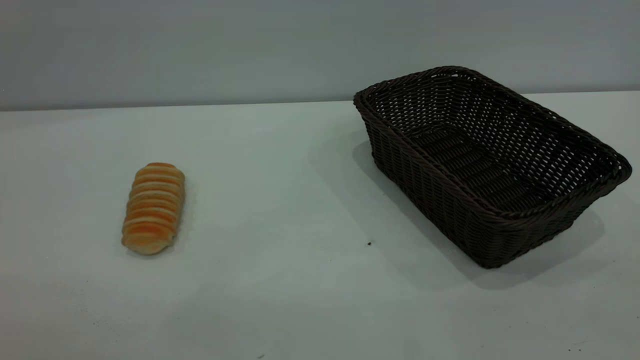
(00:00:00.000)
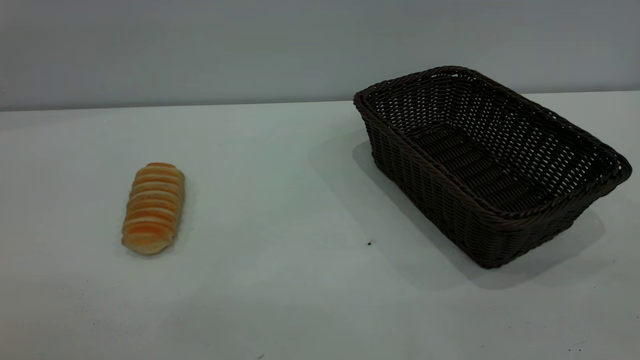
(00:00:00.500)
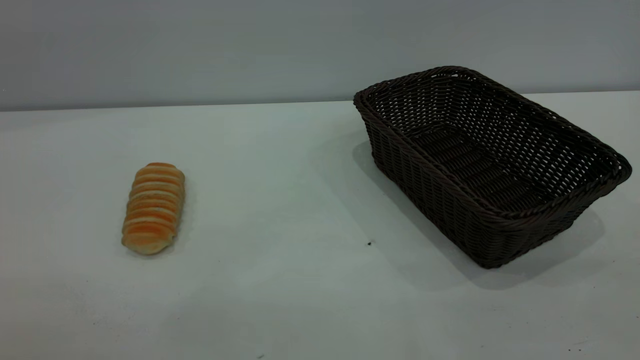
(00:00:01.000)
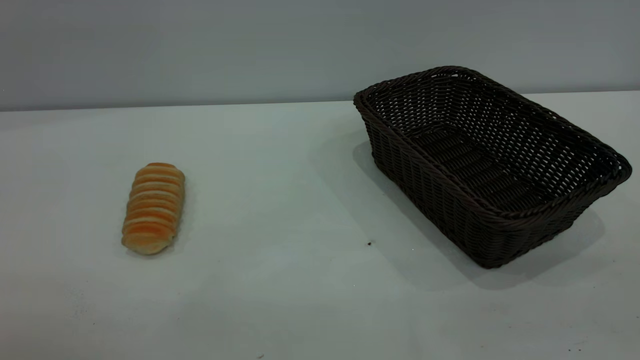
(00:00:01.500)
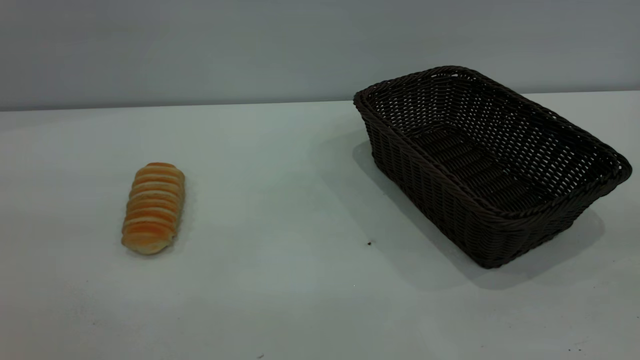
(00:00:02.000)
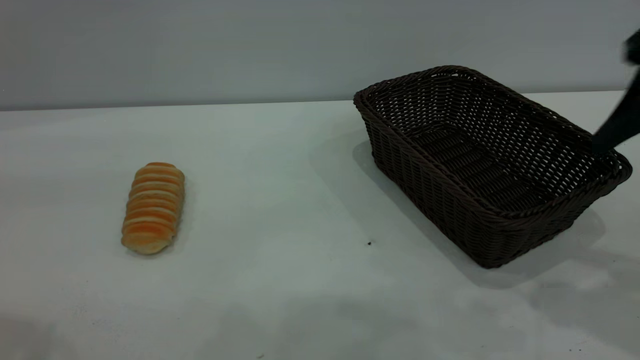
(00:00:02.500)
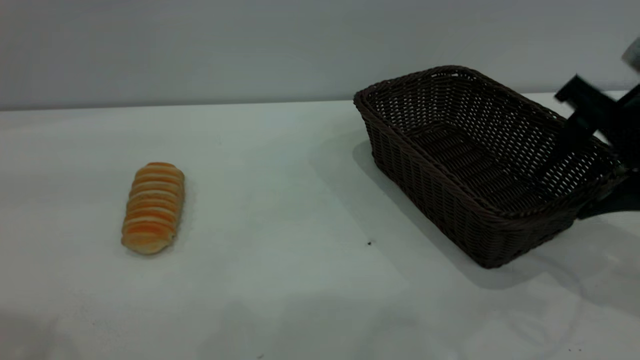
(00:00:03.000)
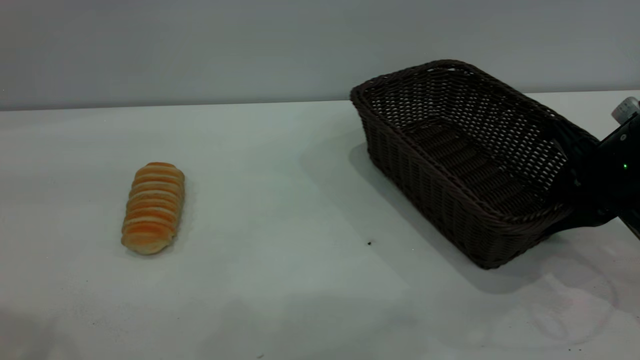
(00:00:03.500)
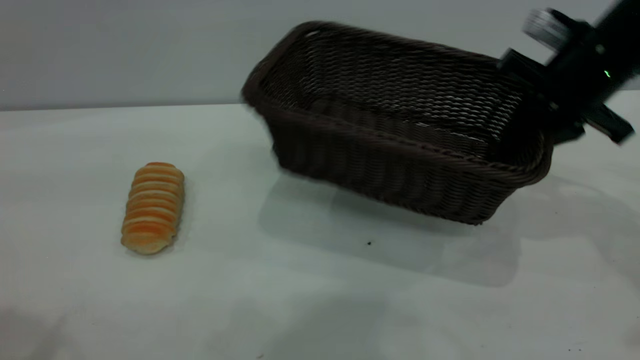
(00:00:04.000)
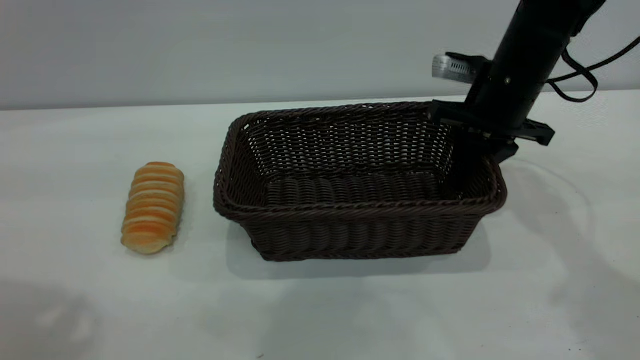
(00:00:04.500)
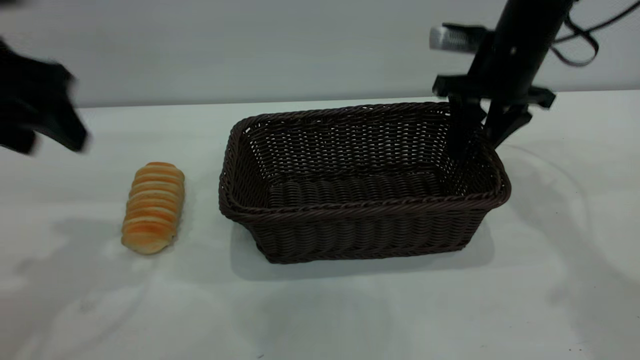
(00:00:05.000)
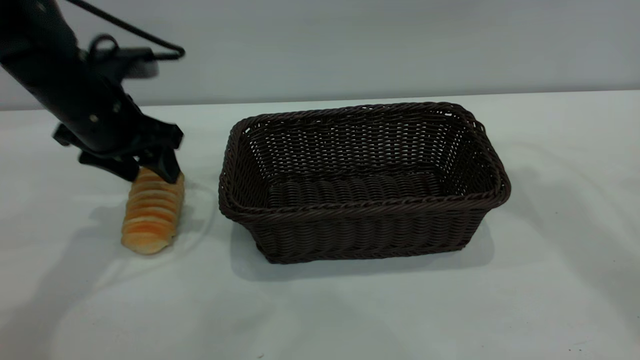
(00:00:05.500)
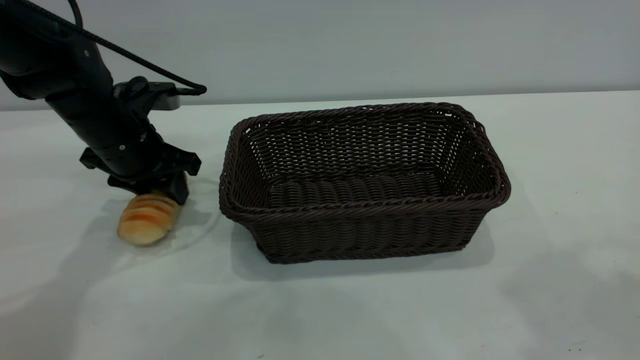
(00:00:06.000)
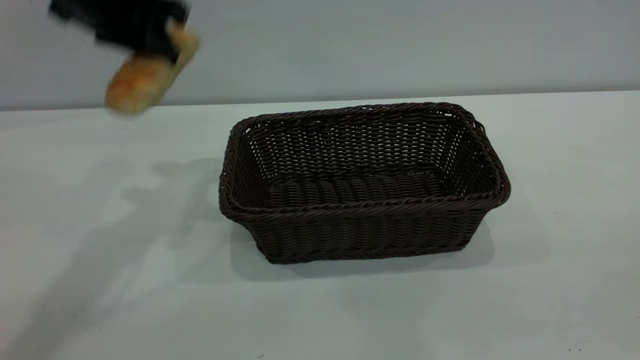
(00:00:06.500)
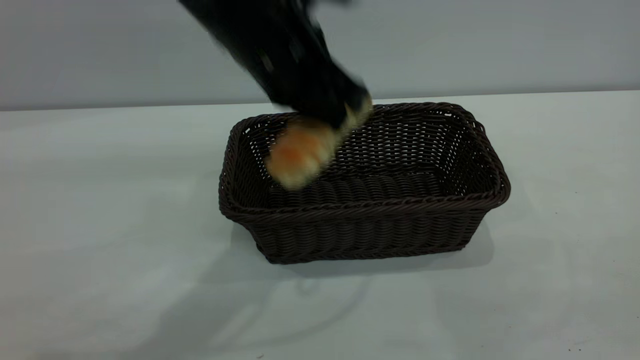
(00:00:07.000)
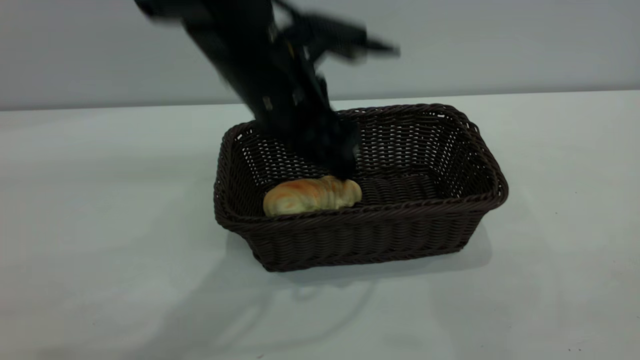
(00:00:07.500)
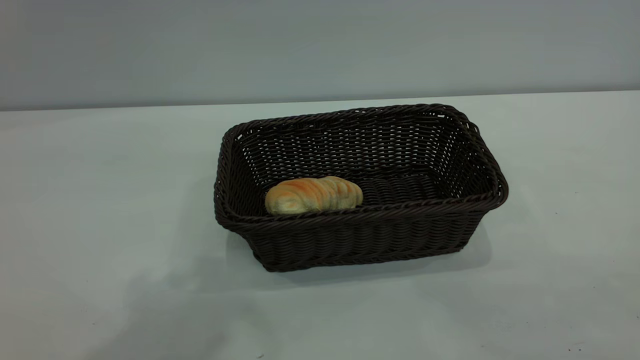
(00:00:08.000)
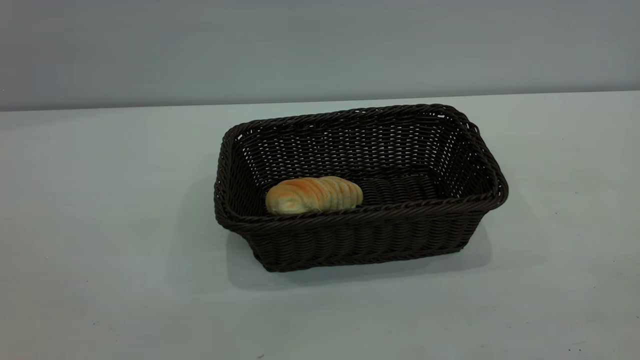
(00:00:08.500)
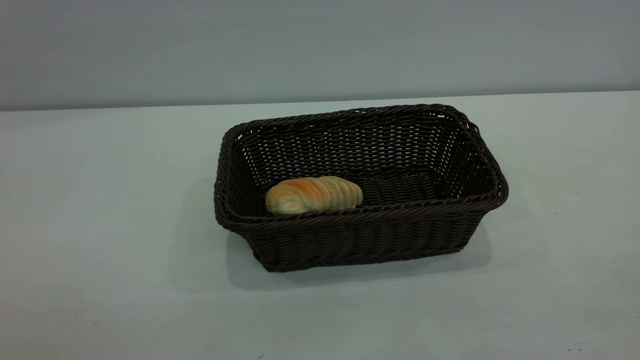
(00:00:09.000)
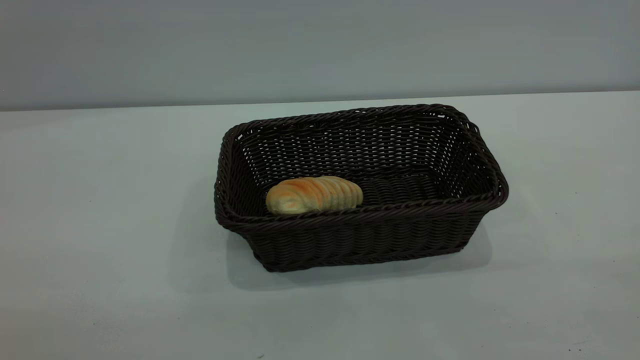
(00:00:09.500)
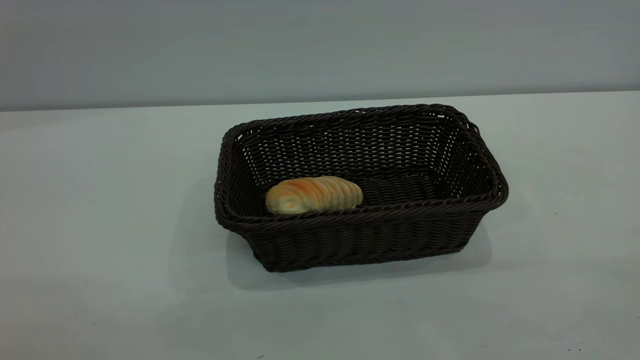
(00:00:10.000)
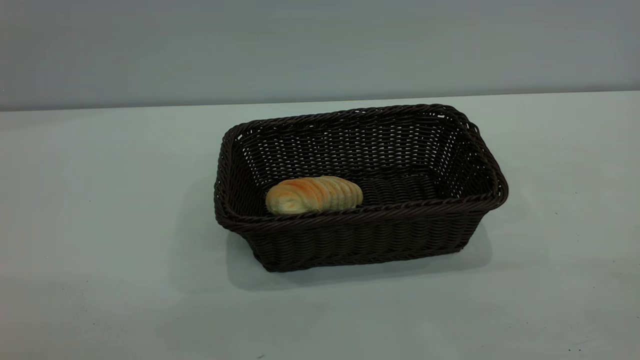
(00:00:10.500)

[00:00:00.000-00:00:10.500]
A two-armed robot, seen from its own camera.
Task of the whole recording: One hand grasps the black basket and places it in the middle of the table, while the other hand picks up the long bread and puts it into the black basket.
Step, 00:00:00.000 to 00:00:05.000: Move the basket to the center of view.
Step, 00:00:07.000 to 00:00:07.500: place the bread into the basket.
00:00:02.000 to 00:00:04.000: The left gripper goes about 10 cm forward, while the right gripper moves forward and downward, roughly 35 cm, and closes up.
00:00:04.000 to 00:00:06.500: The left gripper travels forward, downward and to the right by approximately 25 cm, and closes up. The right gripper travels backward by about 35 cm, and opens.
00:00:06.500 to 00:00:08.500: The left gripper travels backward by some 35 cm, and opens, while the right gripper travels backward by roughly 5 cm.

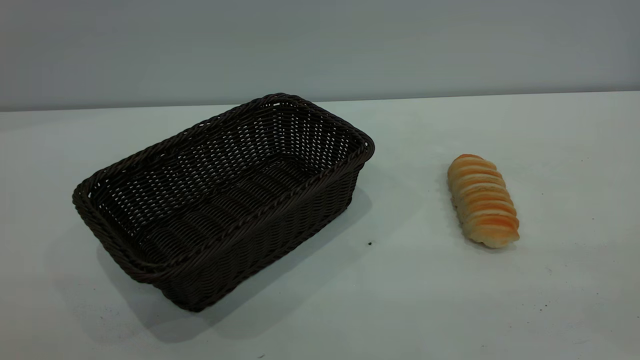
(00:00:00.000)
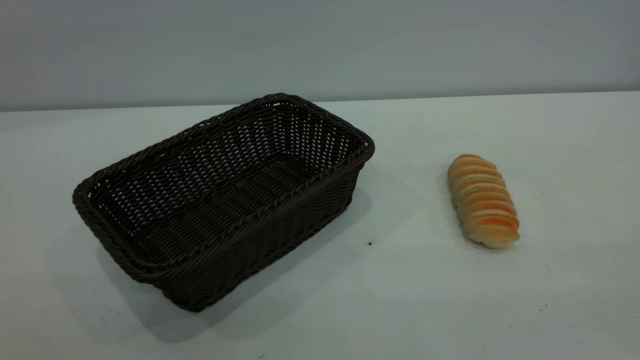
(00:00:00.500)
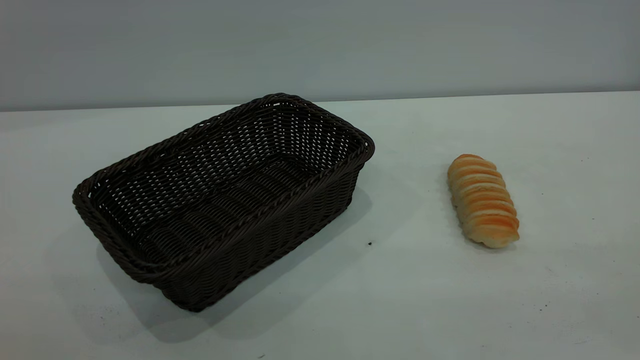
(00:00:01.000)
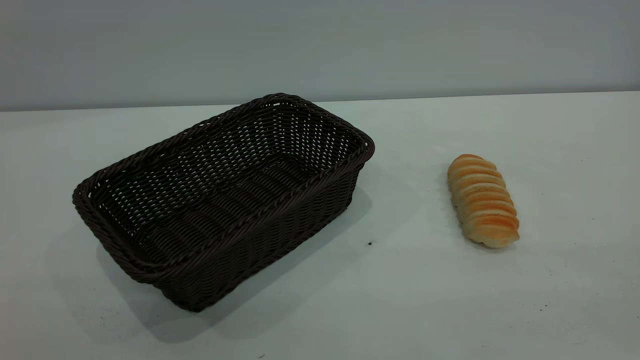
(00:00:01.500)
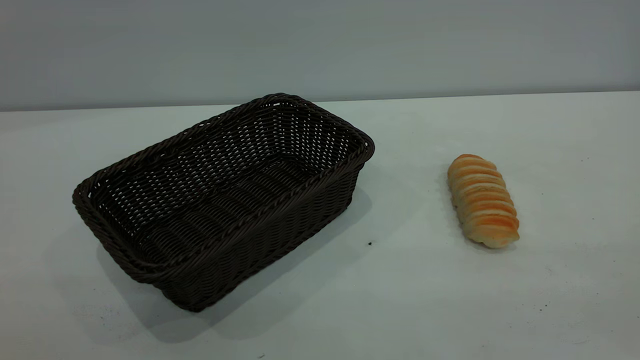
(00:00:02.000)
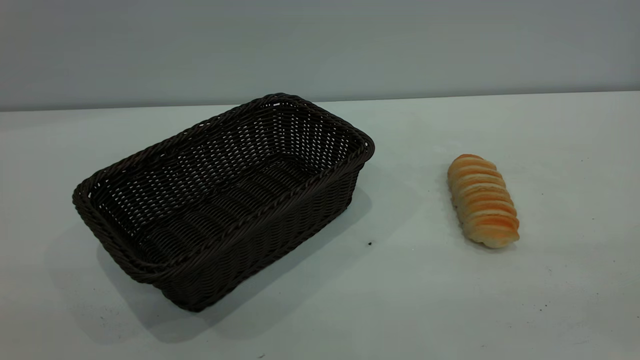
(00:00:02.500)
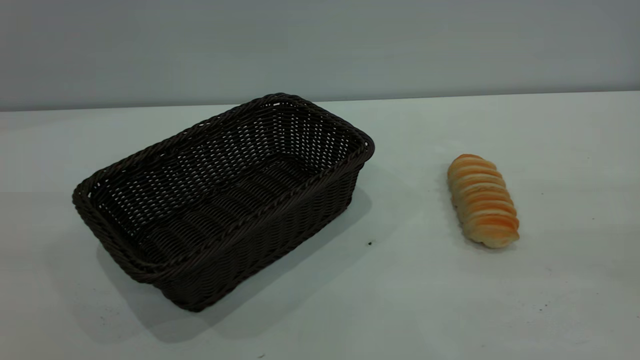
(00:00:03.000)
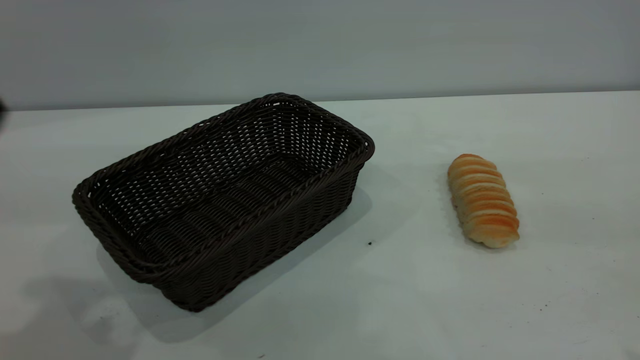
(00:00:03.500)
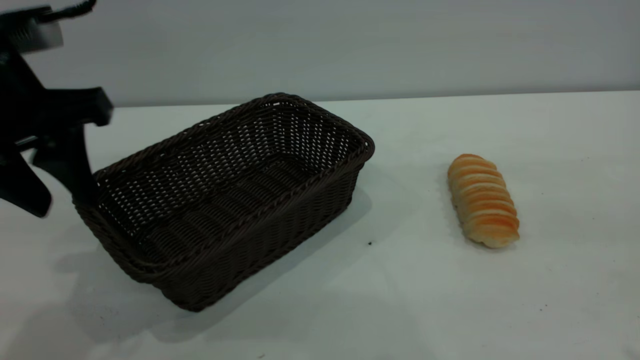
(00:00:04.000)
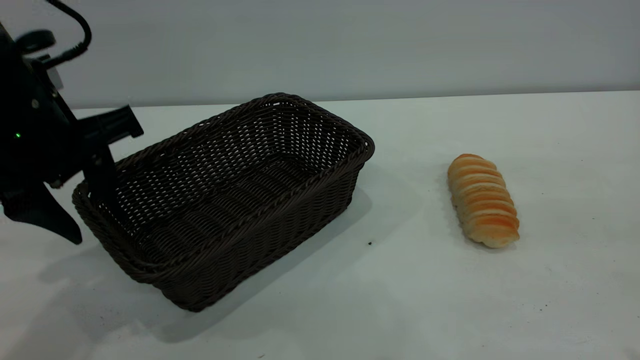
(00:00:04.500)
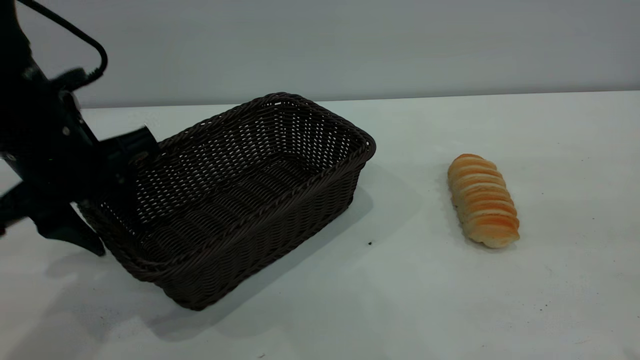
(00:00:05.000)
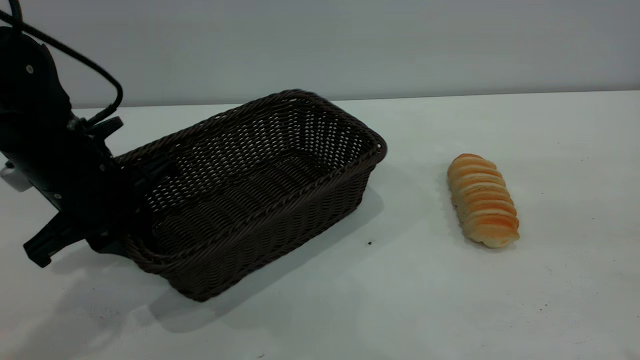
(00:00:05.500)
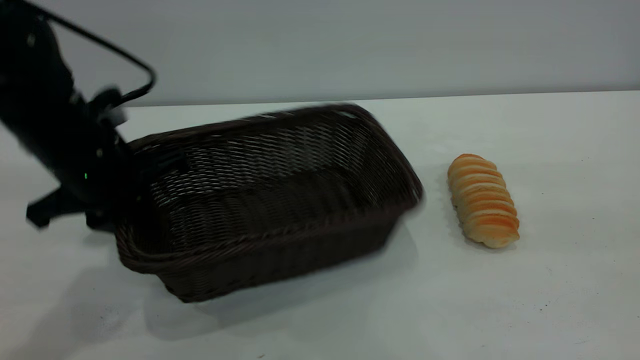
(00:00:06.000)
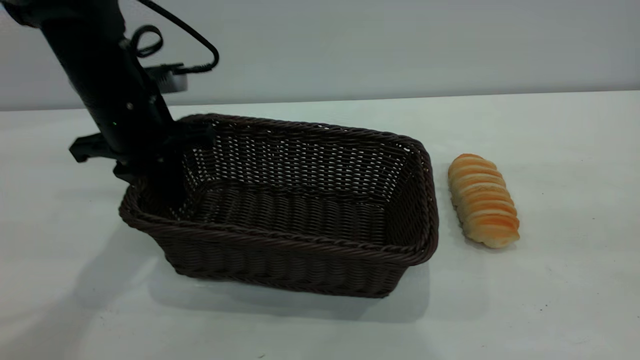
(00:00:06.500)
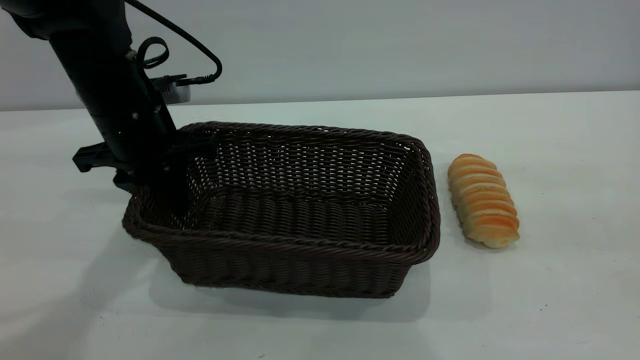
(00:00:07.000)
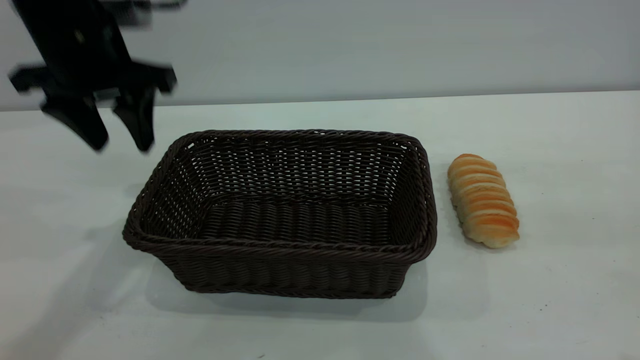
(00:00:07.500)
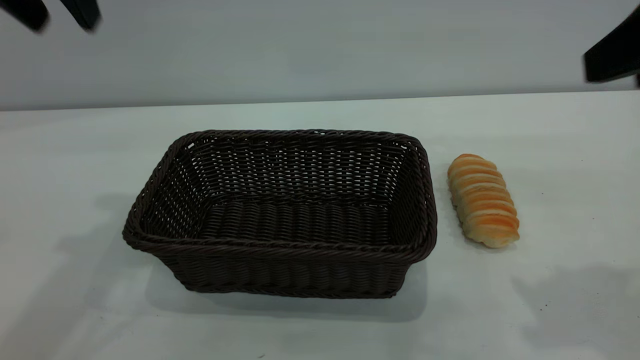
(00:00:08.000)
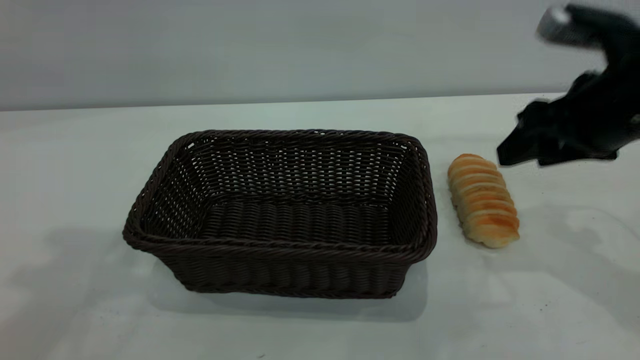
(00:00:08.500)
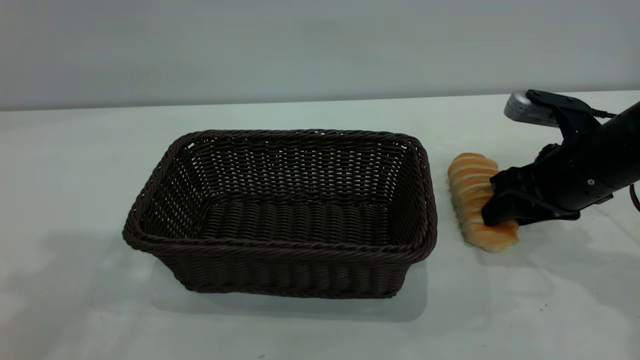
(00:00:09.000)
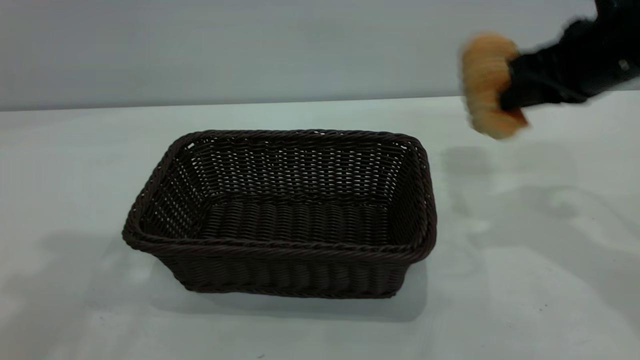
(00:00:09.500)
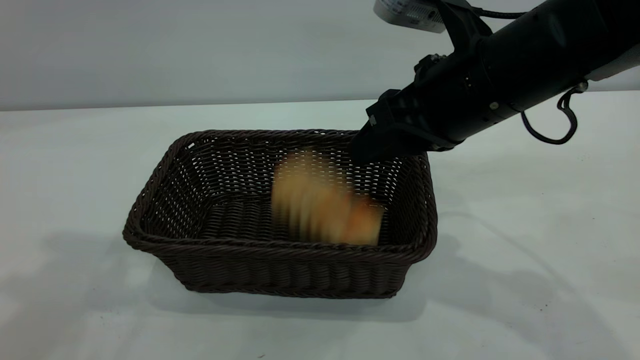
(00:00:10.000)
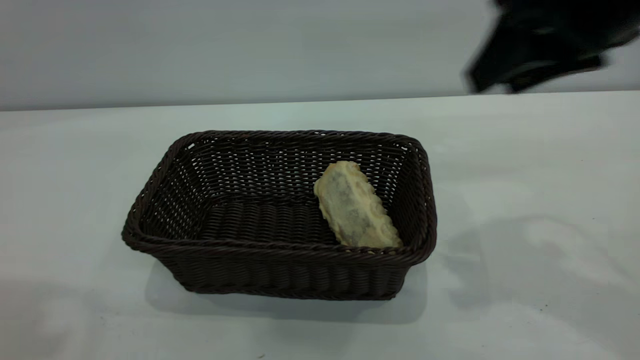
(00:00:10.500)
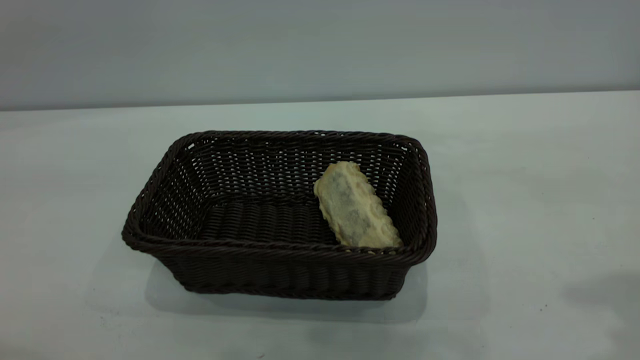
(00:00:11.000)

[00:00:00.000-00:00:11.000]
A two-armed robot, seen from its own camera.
Task of the whole recording: One hand grasps the black basket and places it in the middle of the table, while the other hand picks up the long bread and puts it into the black basket.
Step, 00:00:00.000 to 00:00:07.500: Move the basket to the center of view.
Step, 00:00:09.500 to 00:00:10.000: place the bread into the basket.
00:00:00.000 to 00:00:02.000: The two grippers keep their place.
00:00:03.500 to 00:00:05.500: The left gripper shifts approximately 20 cm downward and forward, and closes.
00:00:05.500 to 00:00:07.500: The left gripper heads upward and forward, covering roughly 15 cm, and opens up.
00:00:07.500 to 00:00:09.000: The right gripper shifts some 35 cm downward and forward, and closes; the left gripper heads upward and backward, covering about 25 cm.
00:00:09.000 to 00:00:11.000: The right gripper travels upward and backward by approximately 30 cm, and closes, then opens again; the left gripper heads backward and to the left, covering roughly 15 cm.
